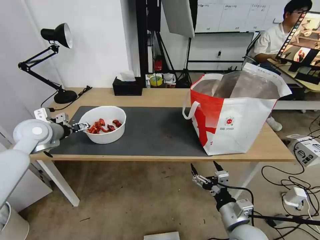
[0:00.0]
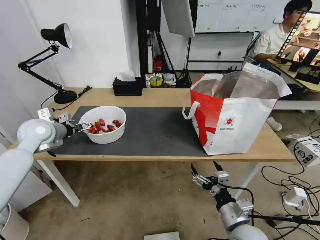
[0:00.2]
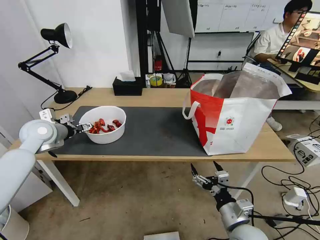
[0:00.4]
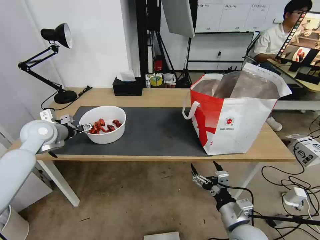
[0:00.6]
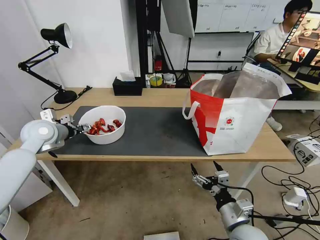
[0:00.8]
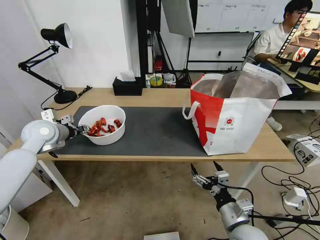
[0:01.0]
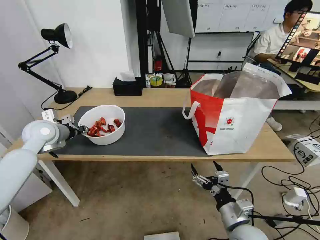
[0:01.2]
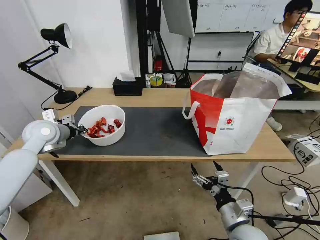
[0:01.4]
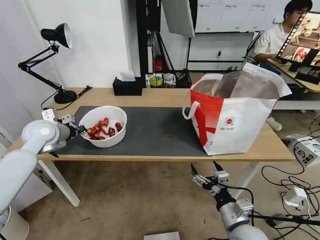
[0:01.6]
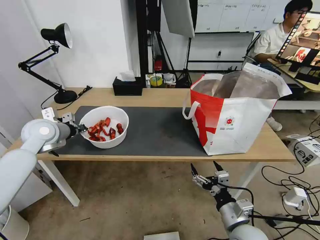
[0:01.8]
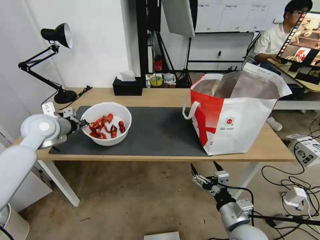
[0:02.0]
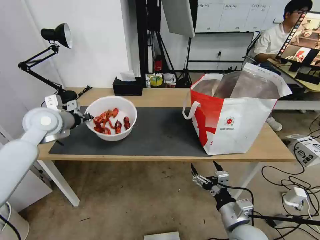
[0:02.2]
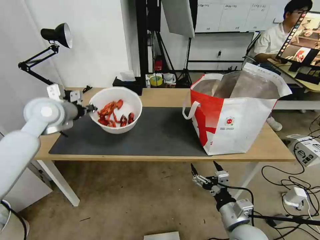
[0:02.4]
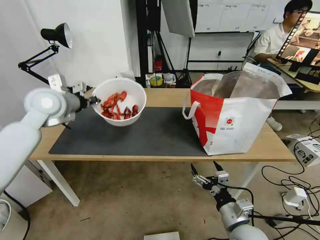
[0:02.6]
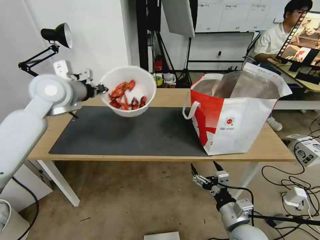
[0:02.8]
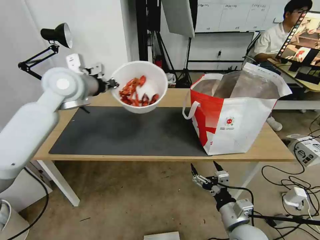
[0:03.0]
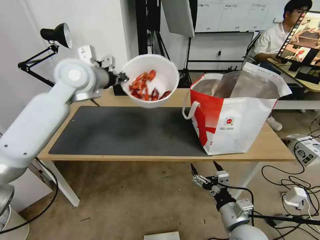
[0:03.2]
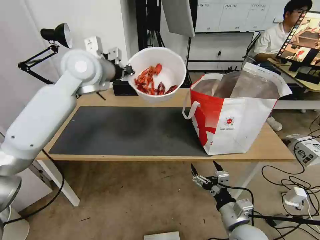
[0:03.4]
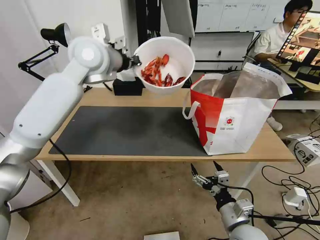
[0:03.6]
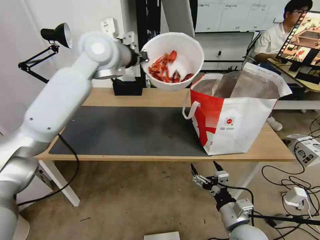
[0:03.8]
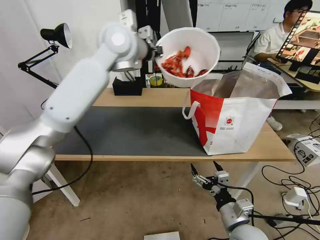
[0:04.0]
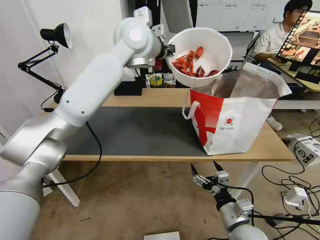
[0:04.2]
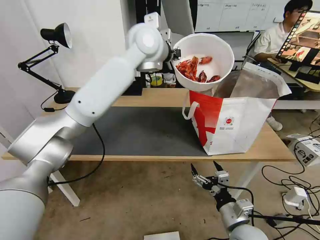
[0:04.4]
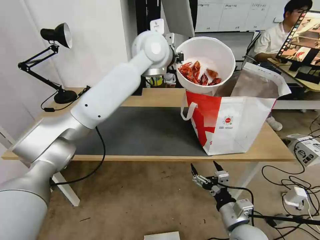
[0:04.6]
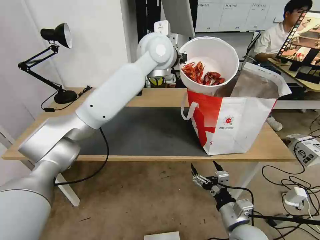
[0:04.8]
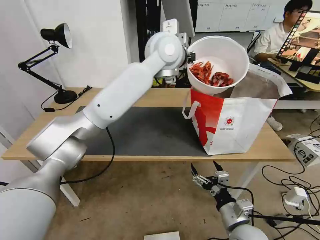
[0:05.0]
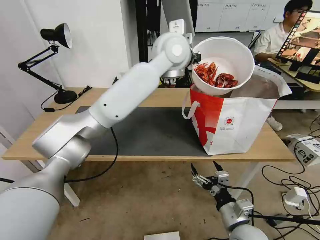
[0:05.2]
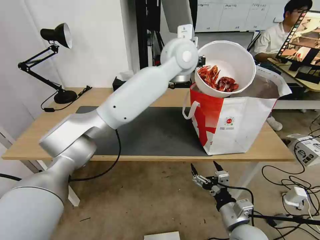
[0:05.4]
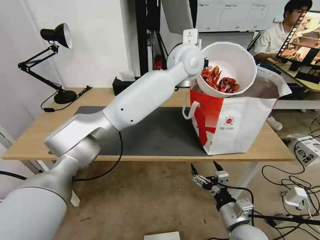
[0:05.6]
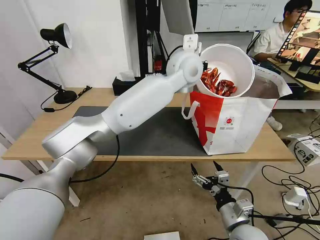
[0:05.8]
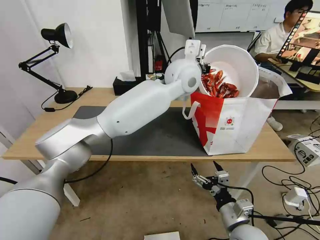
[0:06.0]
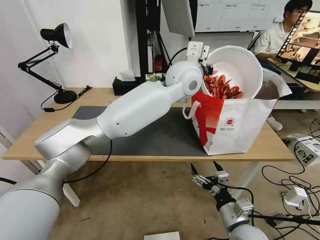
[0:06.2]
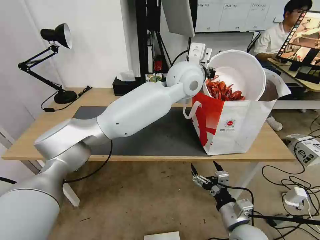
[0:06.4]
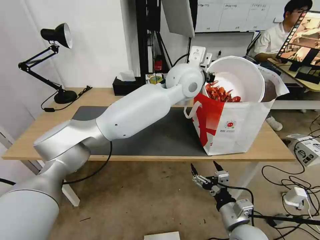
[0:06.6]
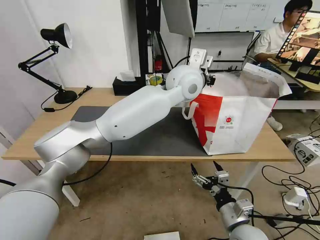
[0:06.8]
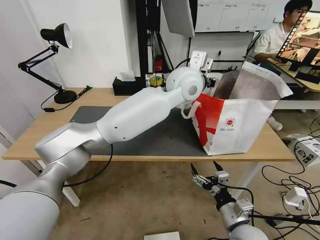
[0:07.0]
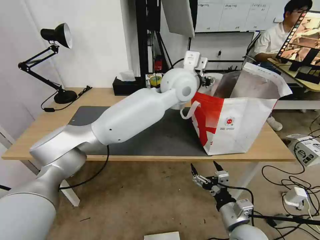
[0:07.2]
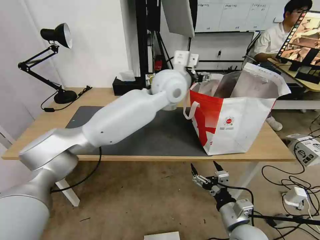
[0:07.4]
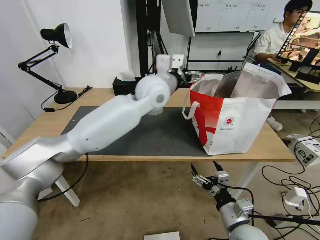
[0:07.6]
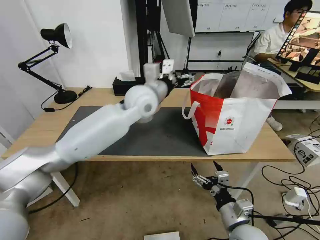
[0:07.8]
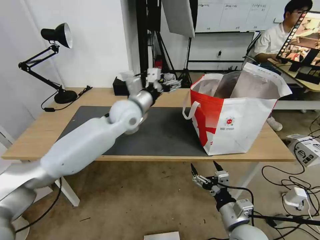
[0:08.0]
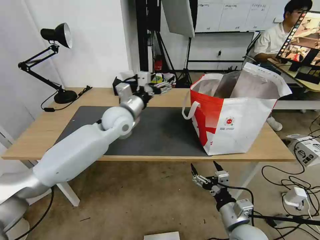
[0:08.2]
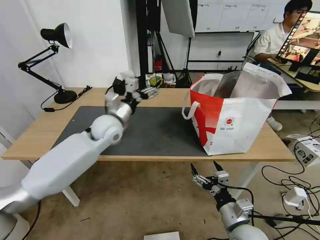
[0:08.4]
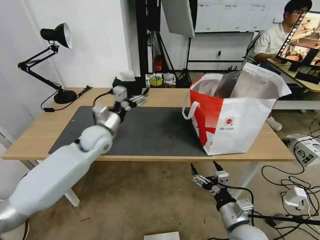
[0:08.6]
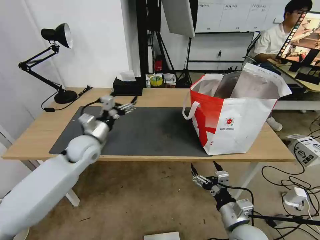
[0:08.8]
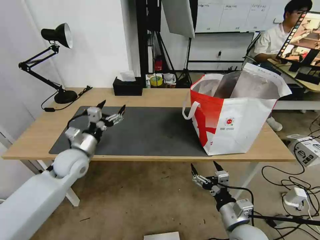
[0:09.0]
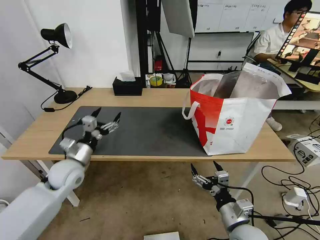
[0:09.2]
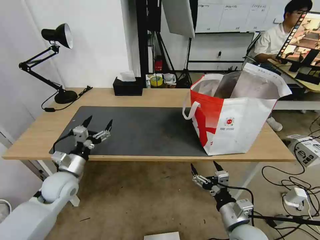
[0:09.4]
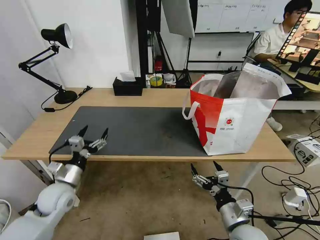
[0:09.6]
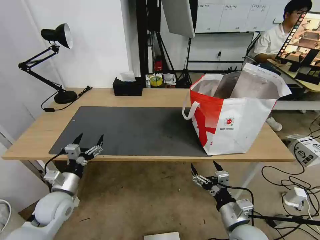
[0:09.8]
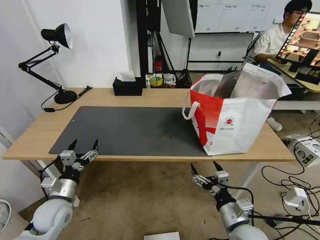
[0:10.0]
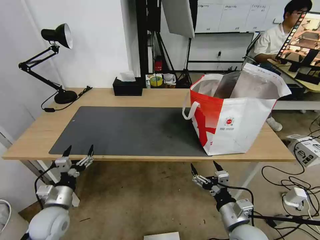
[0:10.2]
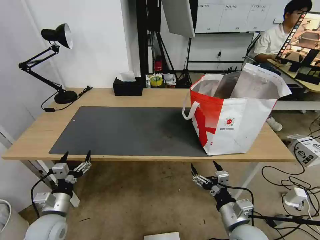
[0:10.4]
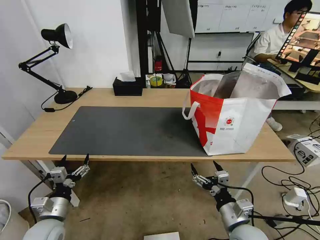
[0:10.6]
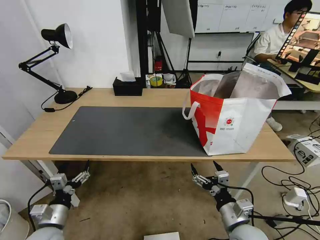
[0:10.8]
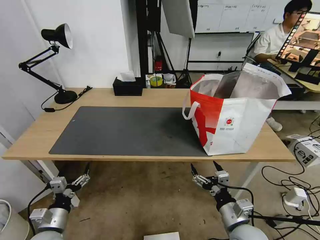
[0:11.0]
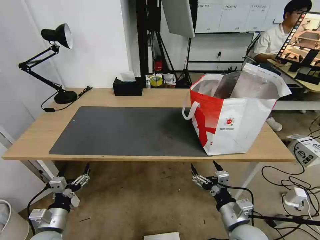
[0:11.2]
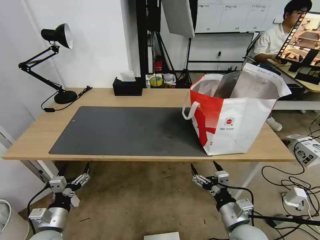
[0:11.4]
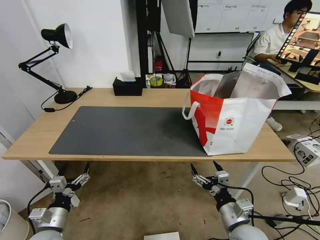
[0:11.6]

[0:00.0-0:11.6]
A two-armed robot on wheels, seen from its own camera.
Task of the whole recording: Pick up the trash from the table and place it into the takeout bag.
0:00.0 to 0:01.4: The left gripper closes its fingers.
0:01.4 to 0:02.8: The left gripper moves upward and to the right, some 15 cm.
0:02.8 to 0:04.4: The left gripper travels to the right by roughly 25 cm.
0:04.4 to 0:05.8: The left gripper heads to the right and downward, covering approximately 10 cm.
0:05.8 to 0:07.2: The left gripper opens.
0:07.2 to 0:08.8: The left gripper shifts approximately 35 cm to the left and downward, and opens up.
0:08.8 to 0:10.2: The left gripper goes some 25 cm backward, downward and to the left.
0:10.2 to 0:11.6: The left gripper heads backward, covering some 5 cm.

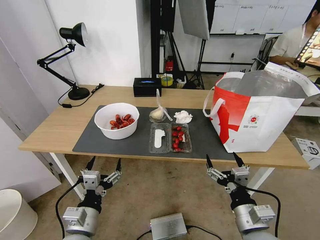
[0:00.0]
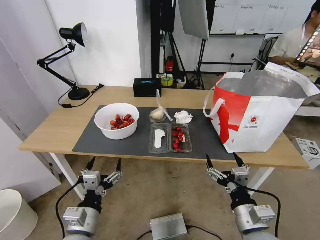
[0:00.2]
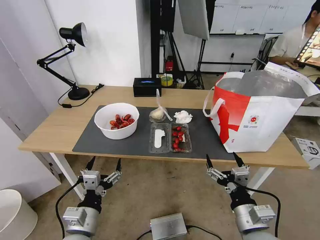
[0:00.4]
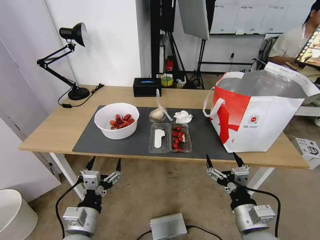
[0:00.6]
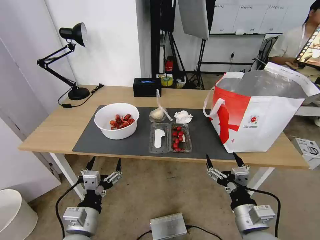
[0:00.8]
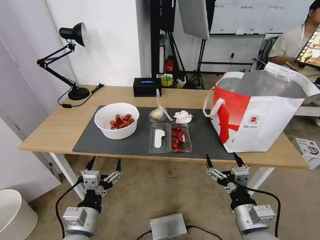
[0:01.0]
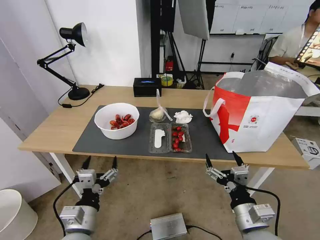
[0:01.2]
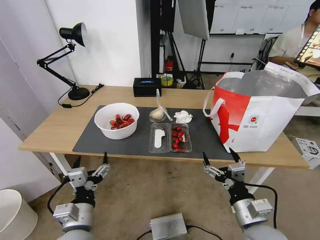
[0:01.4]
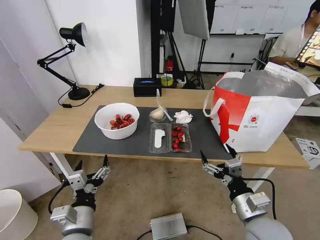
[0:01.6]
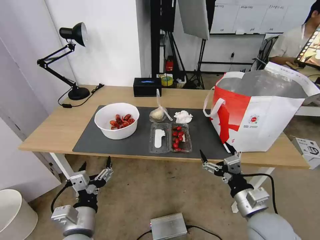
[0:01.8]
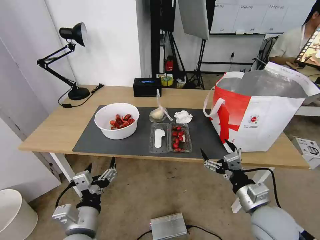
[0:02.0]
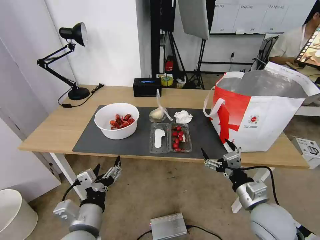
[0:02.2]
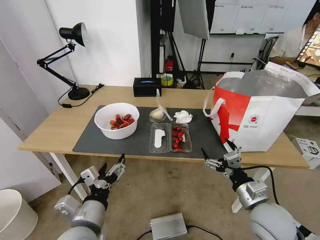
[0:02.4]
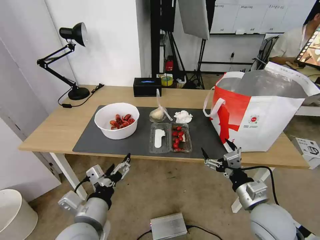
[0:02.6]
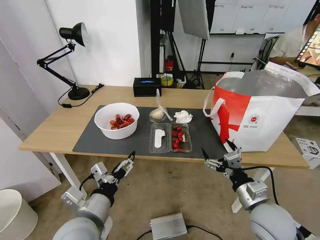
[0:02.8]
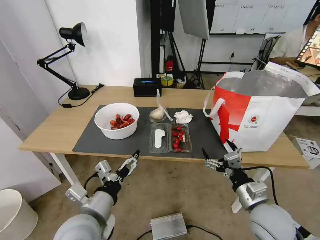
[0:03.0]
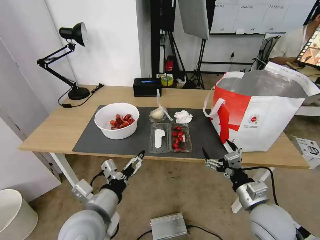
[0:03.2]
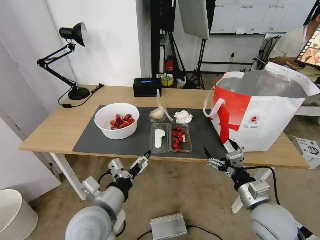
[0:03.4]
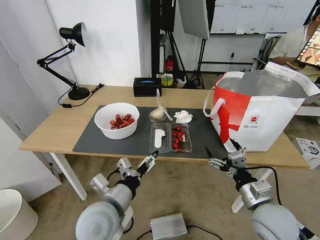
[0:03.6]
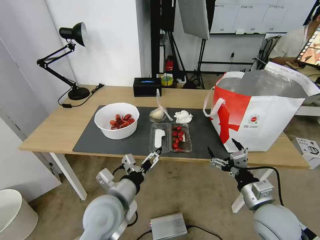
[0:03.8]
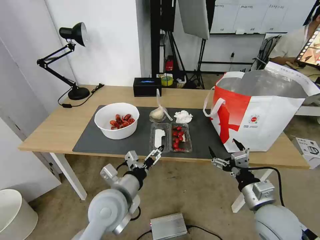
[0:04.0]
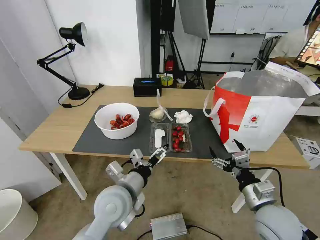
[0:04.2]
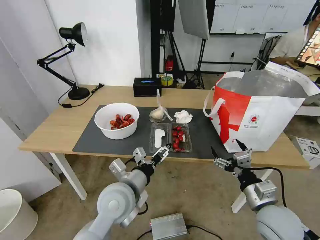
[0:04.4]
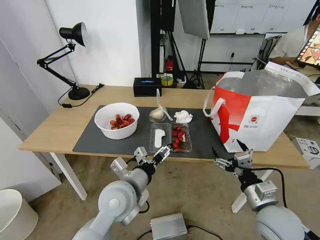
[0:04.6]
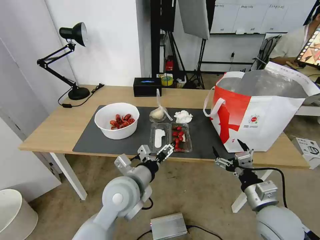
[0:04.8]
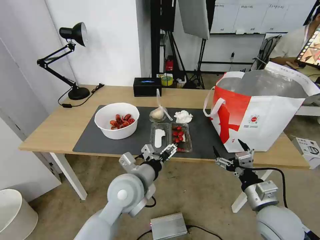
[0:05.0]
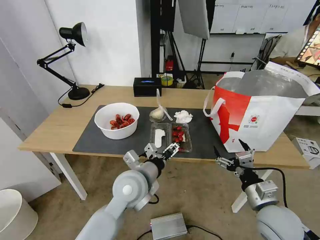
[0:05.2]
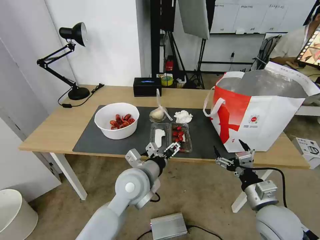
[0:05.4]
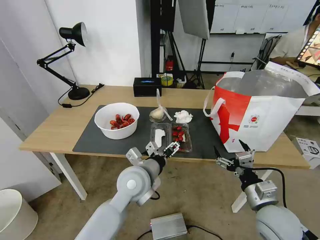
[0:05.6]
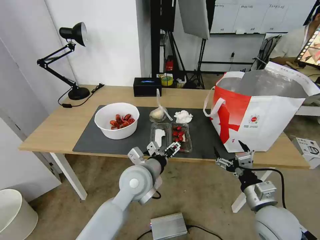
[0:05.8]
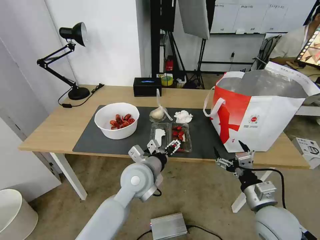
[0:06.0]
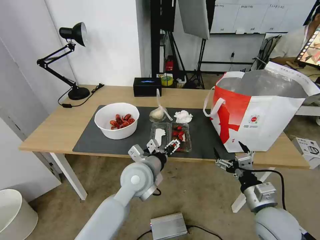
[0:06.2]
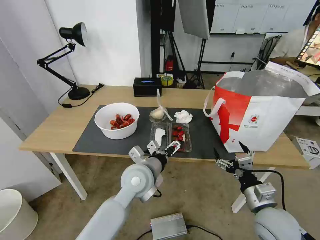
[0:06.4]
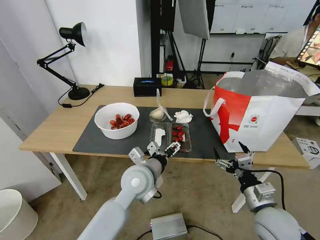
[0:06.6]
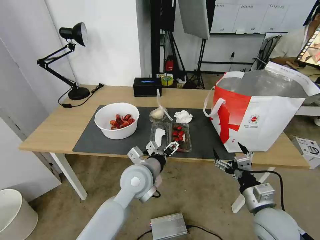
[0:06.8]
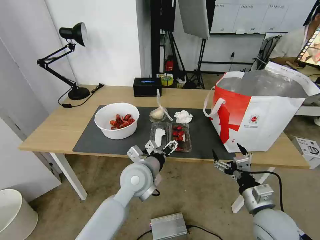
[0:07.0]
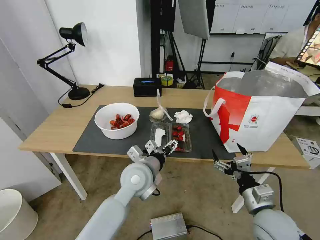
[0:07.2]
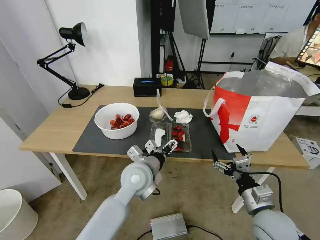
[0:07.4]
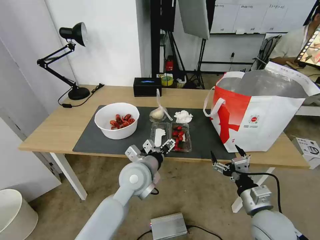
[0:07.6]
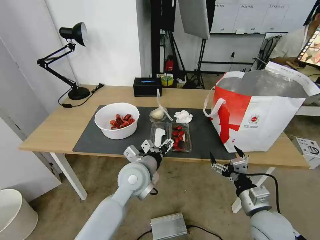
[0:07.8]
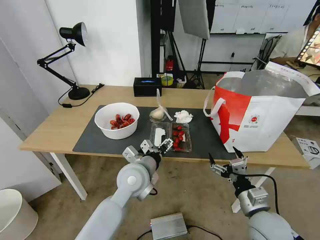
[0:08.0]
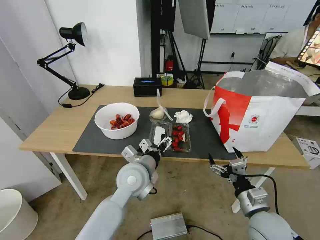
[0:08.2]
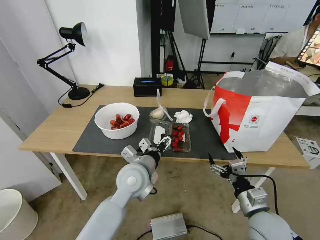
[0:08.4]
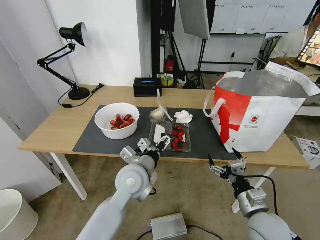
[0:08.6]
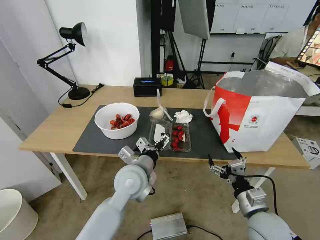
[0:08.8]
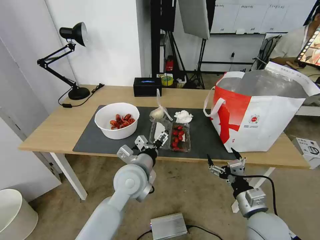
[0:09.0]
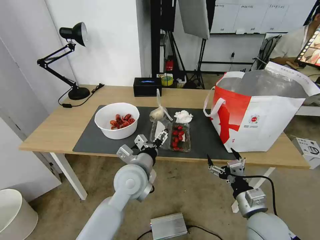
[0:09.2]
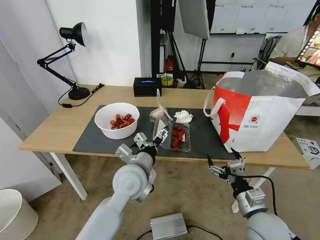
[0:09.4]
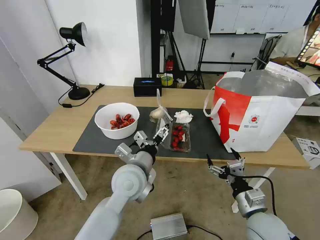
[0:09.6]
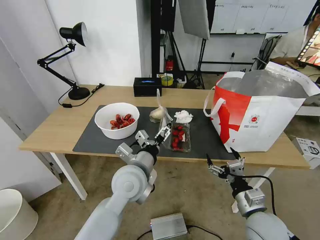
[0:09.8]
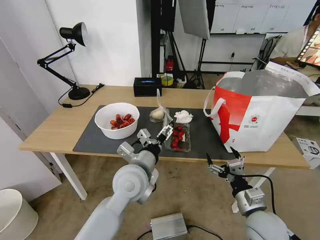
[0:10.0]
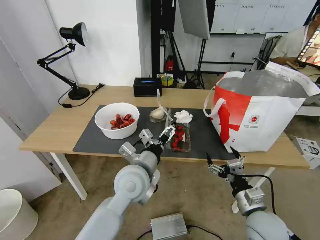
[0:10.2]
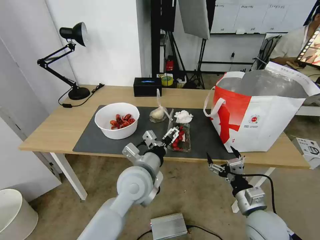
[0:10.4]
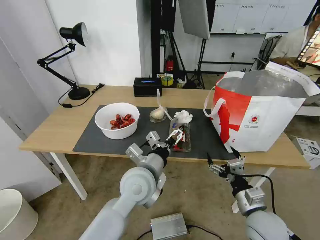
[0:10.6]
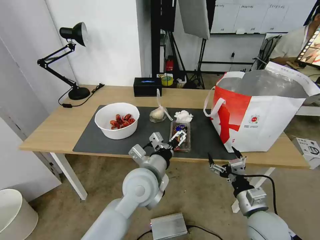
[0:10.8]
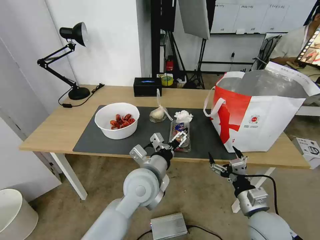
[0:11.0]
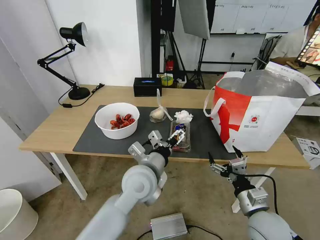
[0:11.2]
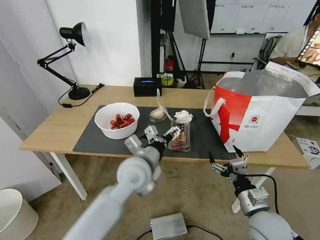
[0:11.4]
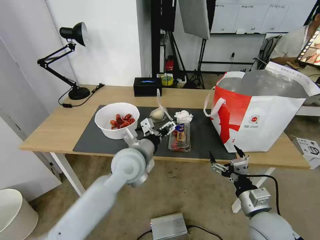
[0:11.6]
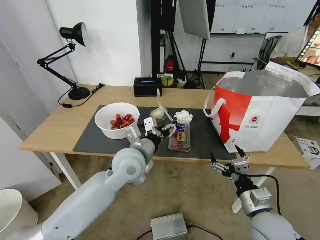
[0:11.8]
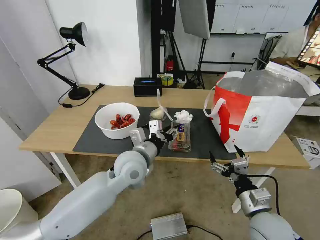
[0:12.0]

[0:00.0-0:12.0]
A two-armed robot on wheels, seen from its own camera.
Task of the whole recording: Pick up the trash from the table and place it into the takeout bag.
0:01.6 to 0:03.0: The left gripper goes about 5 cm upward.
0:03.0 to 0:04.4: The left gripper heads forward and to the right, covering approximately 10 cm.
0:04.4 to 0:06.0: The left gripper moves forward, about 5 cm.
0:06.0 to 0:10.4: The grippers move only a little.
0:10.4 to 0:12.0: The left gripper travels forward by some 5 cm, and closes up.
